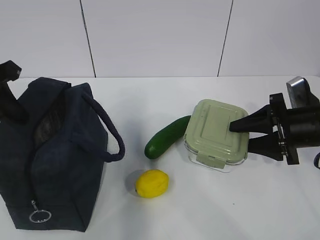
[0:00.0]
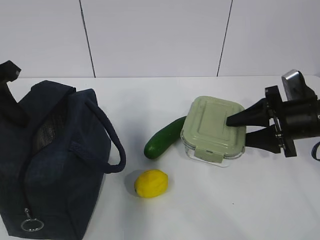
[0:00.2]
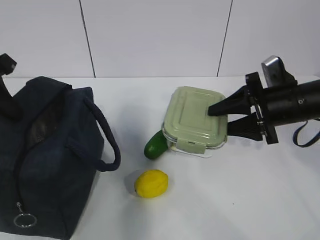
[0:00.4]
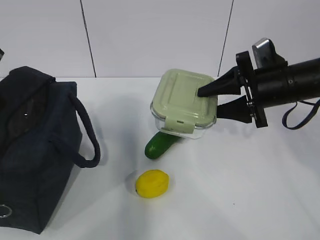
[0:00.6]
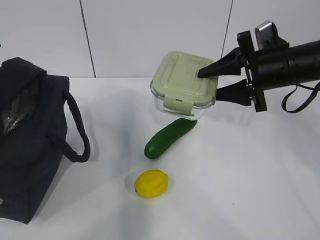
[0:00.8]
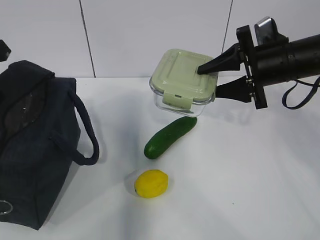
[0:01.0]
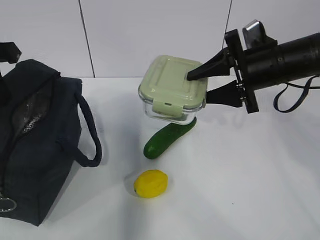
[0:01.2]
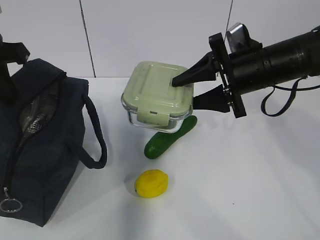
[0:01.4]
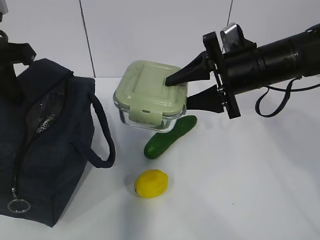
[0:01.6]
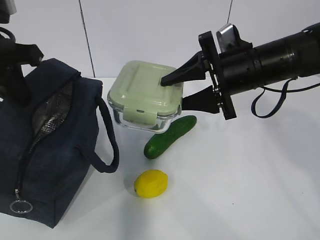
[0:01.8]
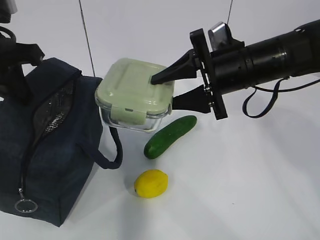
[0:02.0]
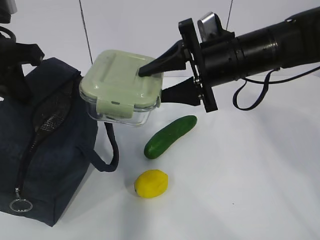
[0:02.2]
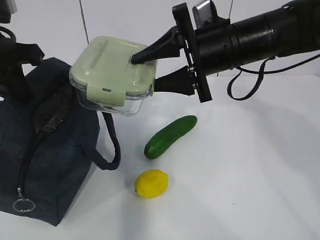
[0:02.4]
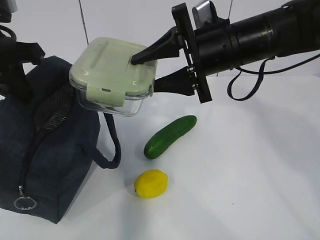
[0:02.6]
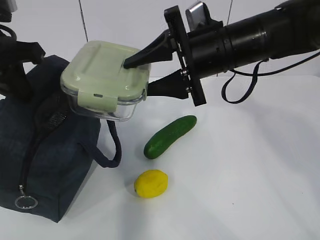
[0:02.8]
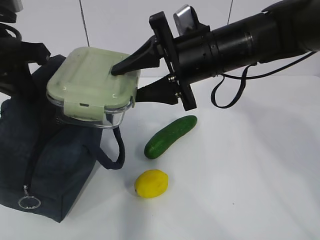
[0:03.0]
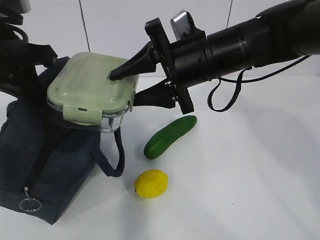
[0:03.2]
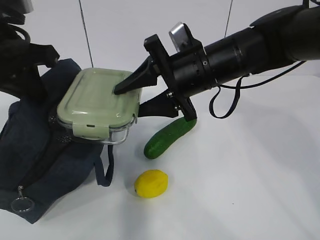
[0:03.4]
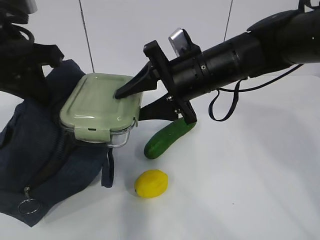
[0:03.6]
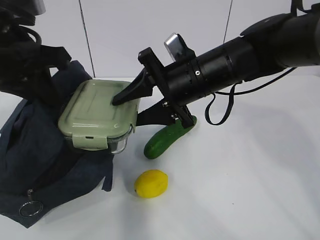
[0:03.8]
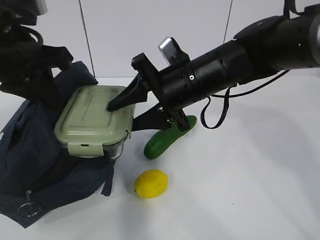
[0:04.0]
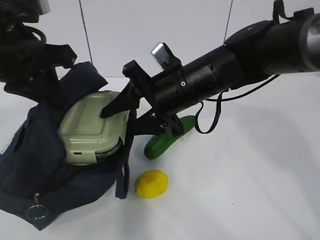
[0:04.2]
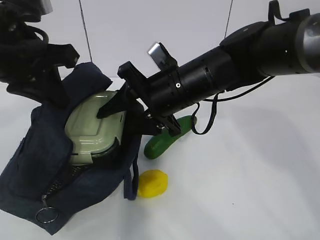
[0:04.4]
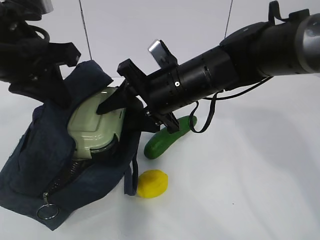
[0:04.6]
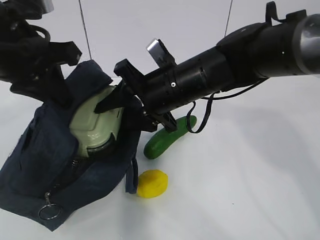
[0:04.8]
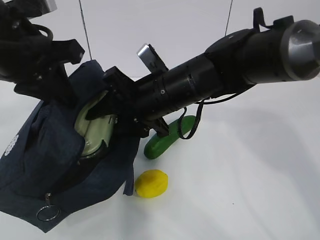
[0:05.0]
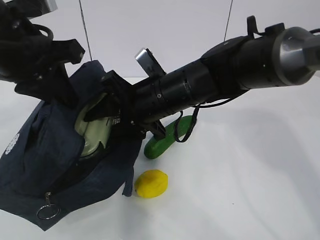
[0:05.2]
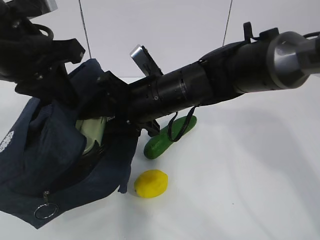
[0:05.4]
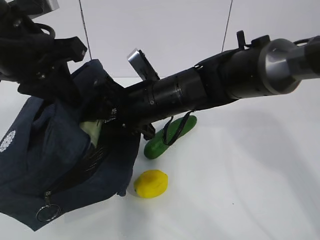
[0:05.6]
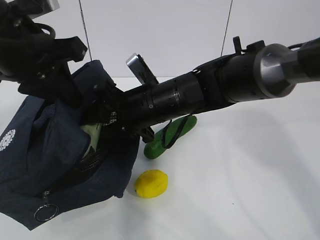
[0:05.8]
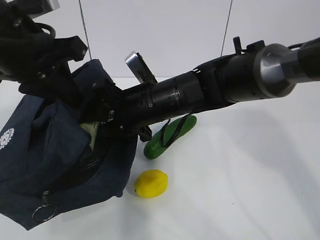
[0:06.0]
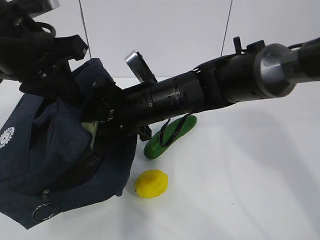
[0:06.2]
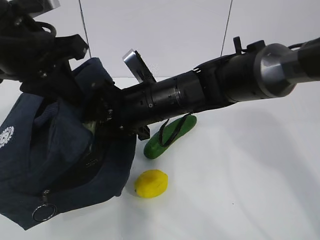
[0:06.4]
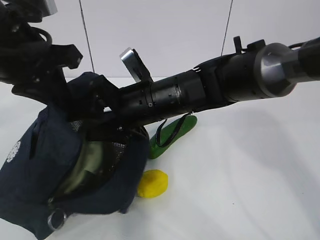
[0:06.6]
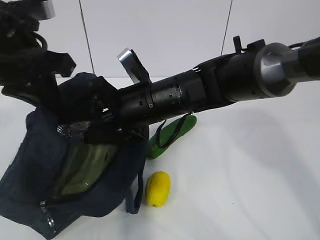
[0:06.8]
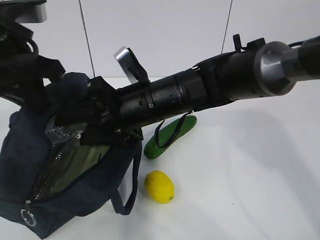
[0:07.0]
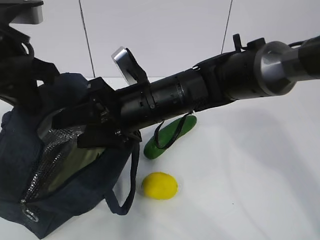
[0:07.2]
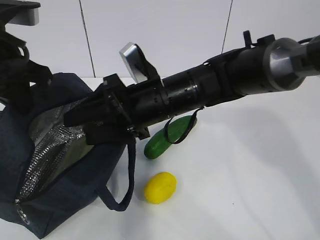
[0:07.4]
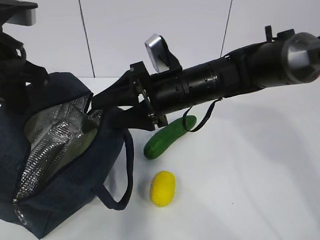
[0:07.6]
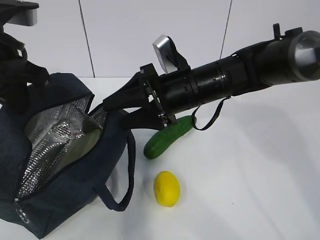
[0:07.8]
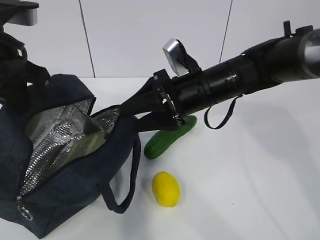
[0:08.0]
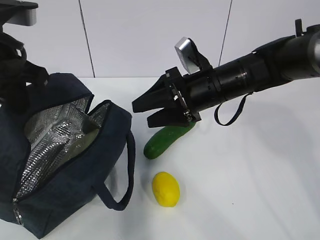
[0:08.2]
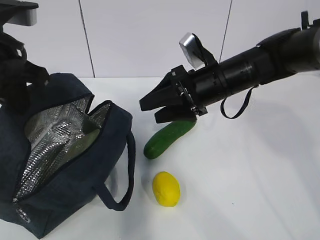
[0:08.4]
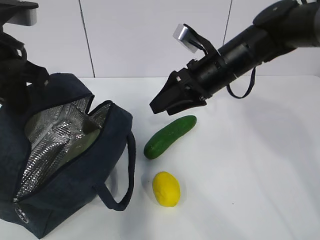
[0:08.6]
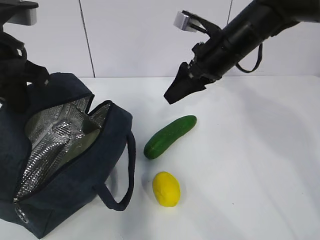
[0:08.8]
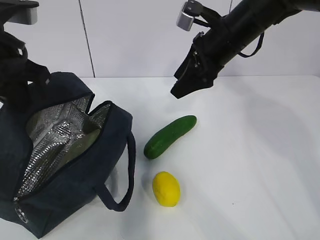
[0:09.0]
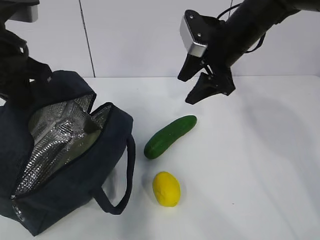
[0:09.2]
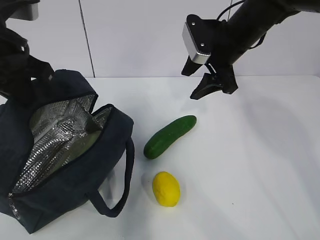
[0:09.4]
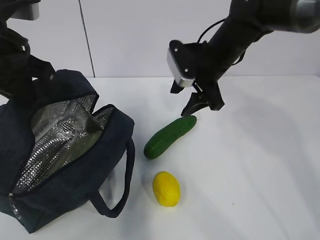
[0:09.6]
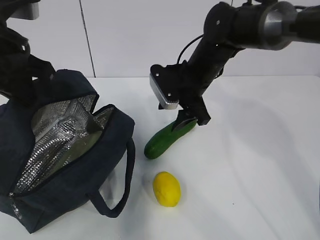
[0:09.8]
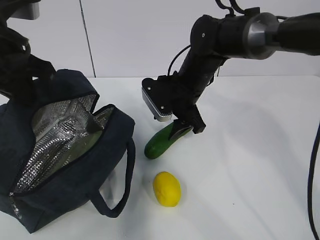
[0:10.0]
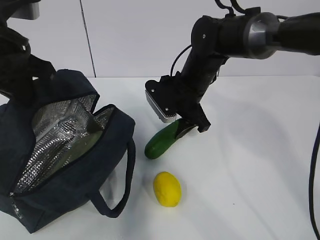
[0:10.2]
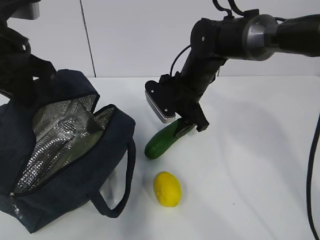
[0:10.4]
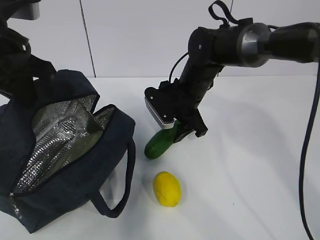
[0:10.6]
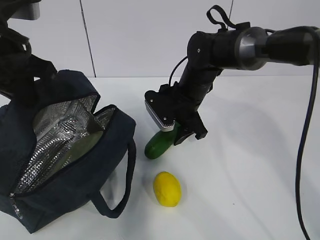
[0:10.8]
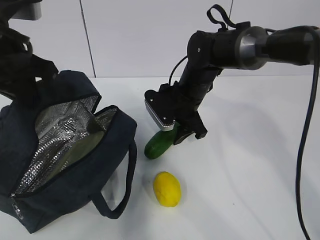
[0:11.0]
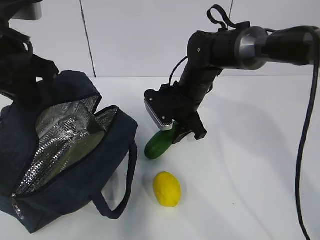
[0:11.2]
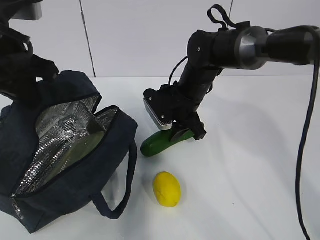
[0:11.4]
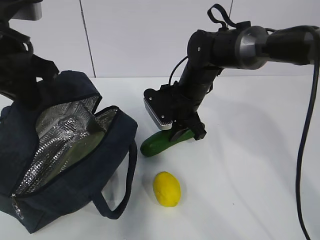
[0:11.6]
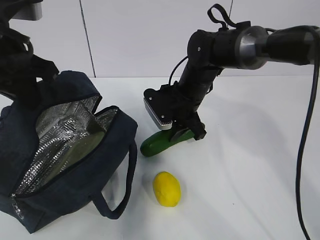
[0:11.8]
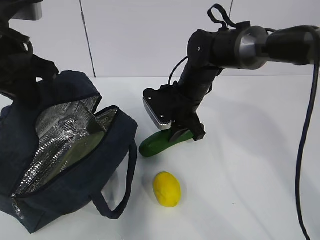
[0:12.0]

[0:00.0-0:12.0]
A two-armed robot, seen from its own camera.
Step, 0:00.4 to 0:07.4: Place the box into the package with the right gripper.
Step, 0:07.6 to 0:11.8: Grasp the cucumber with the right gripper.
0:00.0 to 0:01.6: The left gripper moves roughly 5 cm, while the right gripper heads to the left and upward, covering about 15 cm.
0:01.6 to 0:03.0: The right gripper moves to the left, roughly 5 cm.
0:03.0 to 0:04.4: The right gripper moves some 5 cm.
0:07.6 to 0:09.0: The right gripper goes some 15 cm to the right, forward and upward.
0:09.0 to 0:10.4: The right gripper shifts roughly 10 cm downward and to the left.
0:10.4 to 0:12.0: The right gripper closes up.

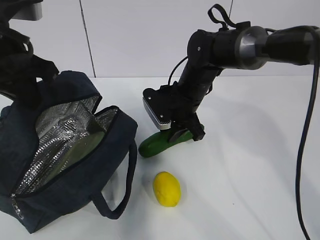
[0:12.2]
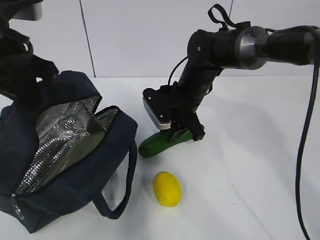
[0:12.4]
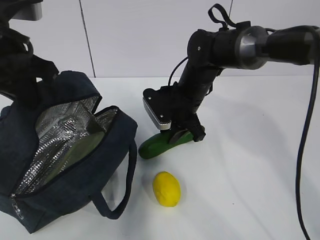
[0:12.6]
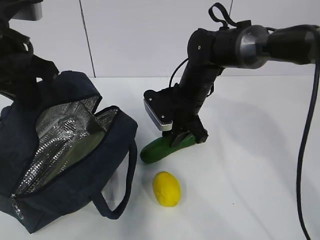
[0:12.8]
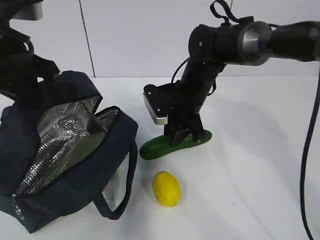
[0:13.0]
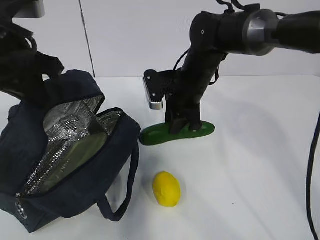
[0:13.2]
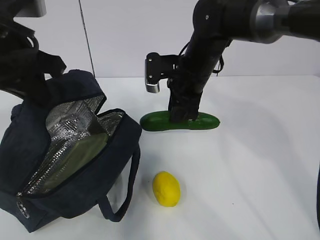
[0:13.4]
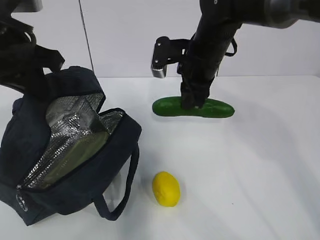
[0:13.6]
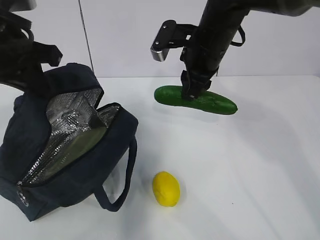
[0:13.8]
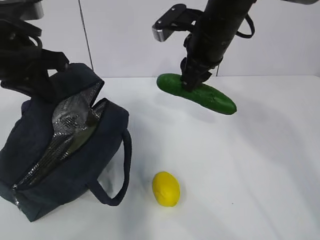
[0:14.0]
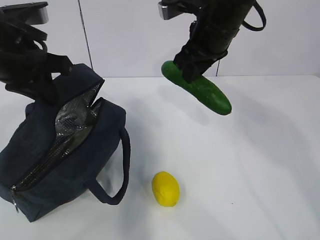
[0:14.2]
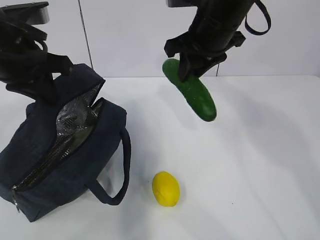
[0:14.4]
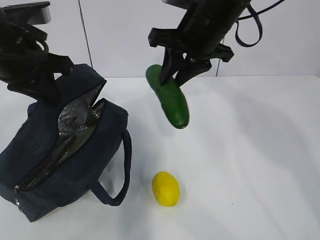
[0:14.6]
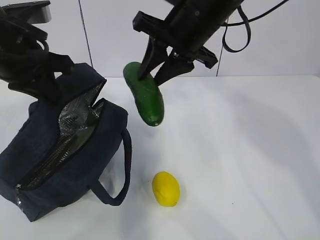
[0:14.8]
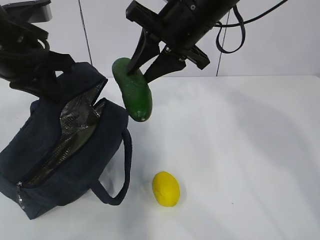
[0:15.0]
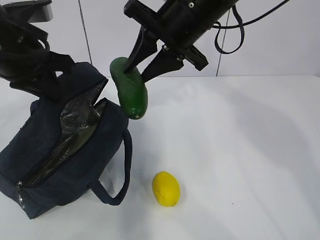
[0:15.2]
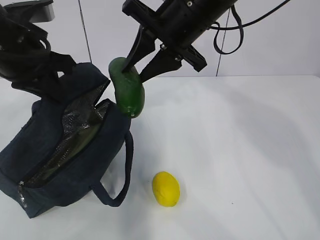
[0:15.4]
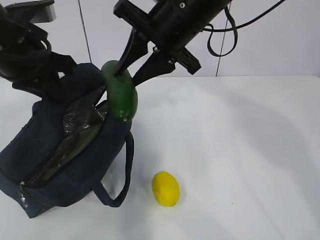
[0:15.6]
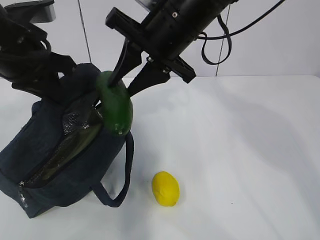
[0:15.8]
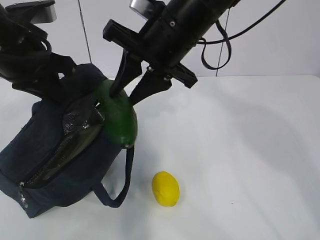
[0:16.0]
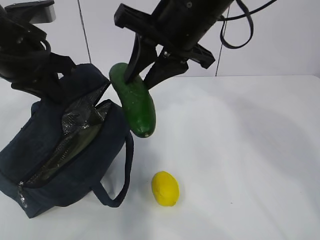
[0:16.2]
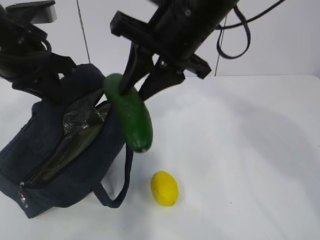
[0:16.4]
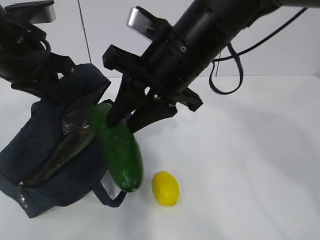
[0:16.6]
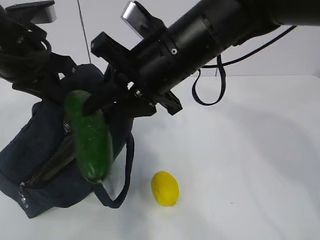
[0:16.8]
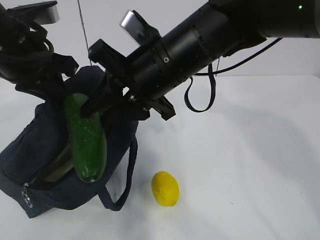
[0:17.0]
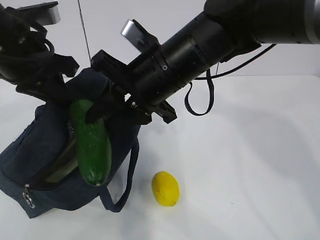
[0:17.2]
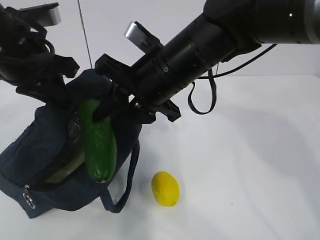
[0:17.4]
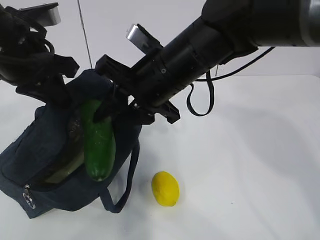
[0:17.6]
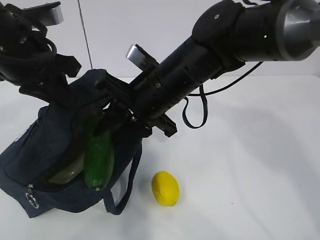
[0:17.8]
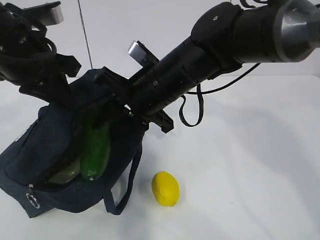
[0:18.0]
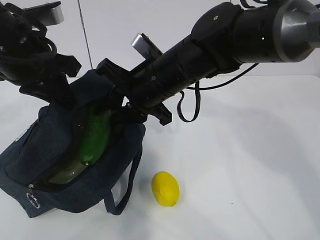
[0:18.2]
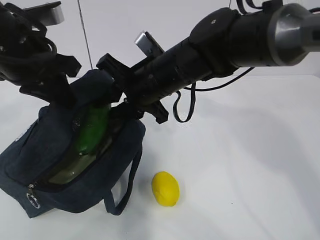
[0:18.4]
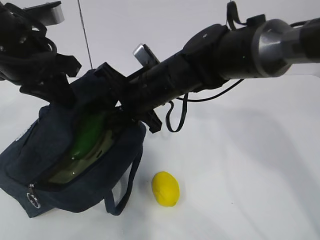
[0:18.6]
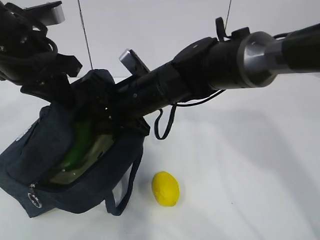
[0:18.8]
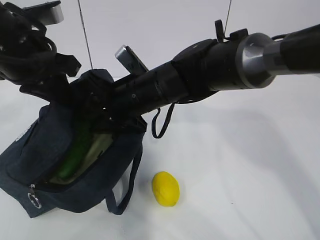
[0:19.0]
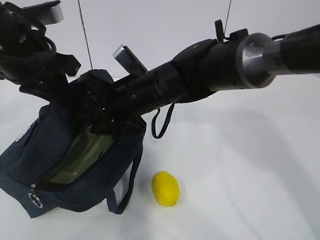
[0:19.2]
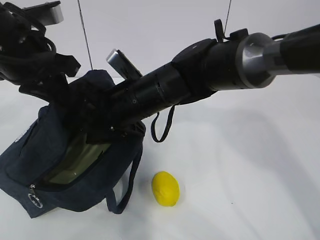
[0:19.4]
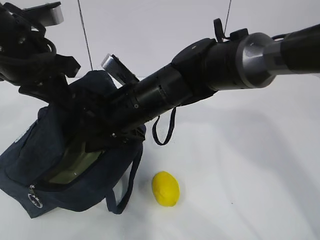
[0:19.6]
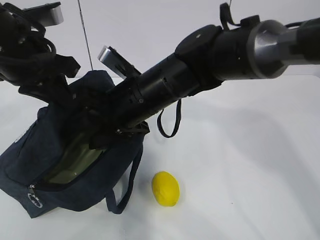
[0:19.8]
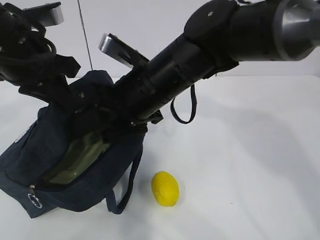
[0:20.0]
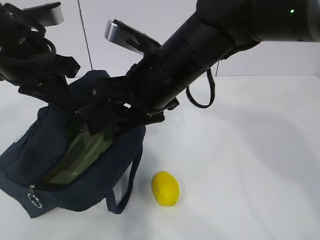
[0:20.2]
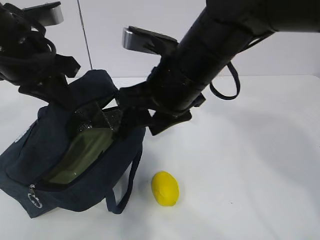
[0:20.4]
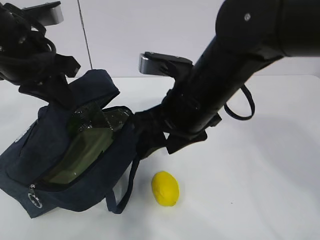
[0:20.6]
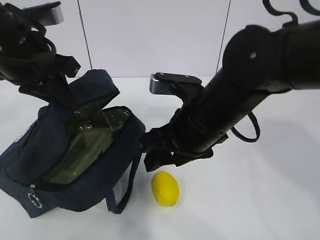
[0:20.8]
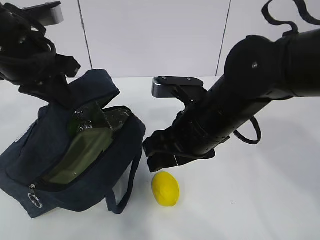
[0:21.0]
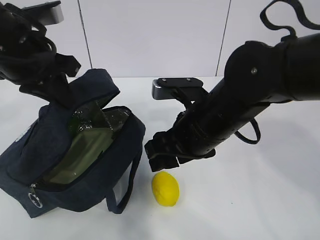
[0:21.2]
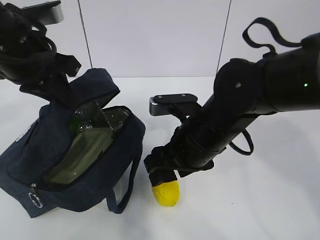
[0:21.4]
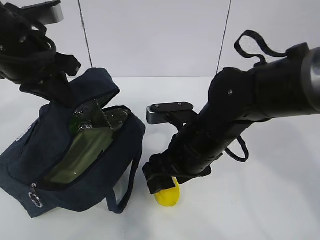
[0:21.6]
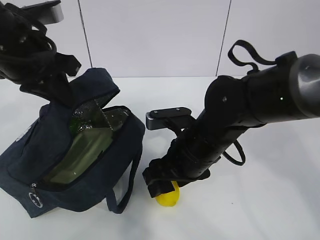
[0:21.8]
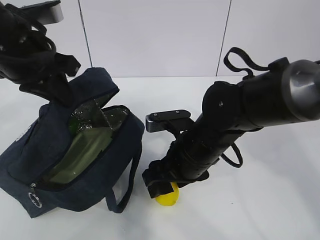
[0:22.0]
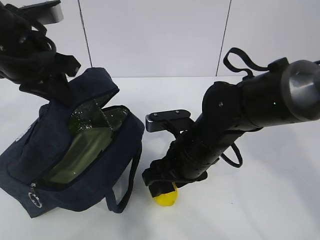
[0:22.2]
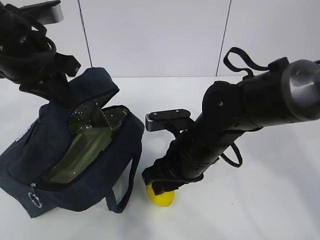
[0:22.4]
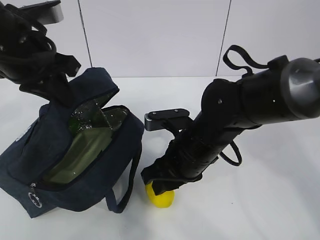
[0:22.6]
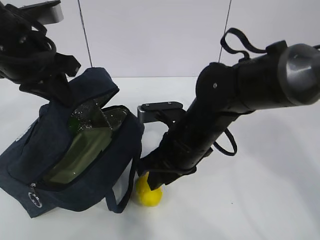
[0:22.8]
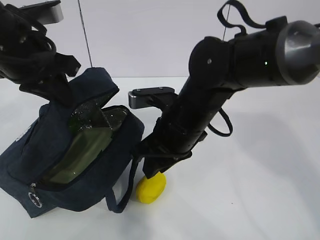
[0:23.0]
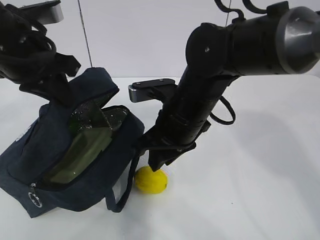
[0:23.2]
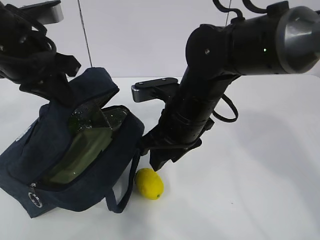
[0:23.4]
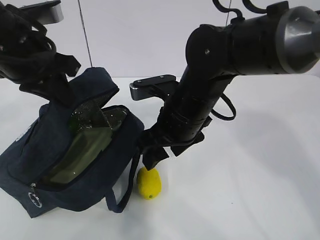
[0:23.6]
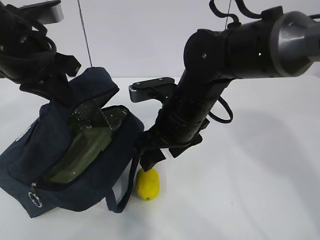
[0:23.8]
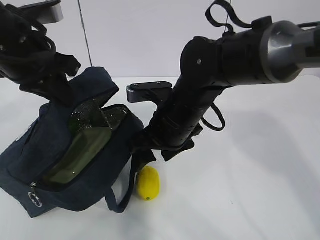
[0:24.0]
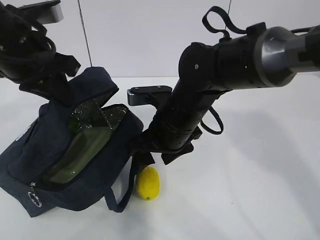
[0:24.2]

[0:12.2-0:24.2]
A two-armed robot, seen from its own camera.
Step, 0:12.2 to 0:20.2: Place the cucumber into the package with the right gripper.
0:12.2 to 0:13.8: The right gripper travels upward by about 10 cm.
0:13.8 to 0:15.2: The right gripper heads upward, covering about 5 cm.
0:15.2 to 0:16.6: The right gripper travels backward by some 5 cm.
0:16.6 to 0:18.2: The right gripper is displaced downward by about 5 cm.
0:18.2 to 0:19.8: The right gripper opens its fingers.
0:19.8 to 0:21.2: The right gripper shifts approximately 10 cm to the right.
0:21.2 to 0:22.6: The right gripper is displaced downward by approximately 5 cm.
0:22.6 to 0:24.2: The right gripper changes place by about 5 cm, and opens its fingers.
